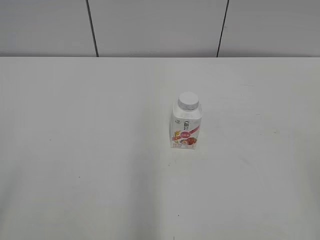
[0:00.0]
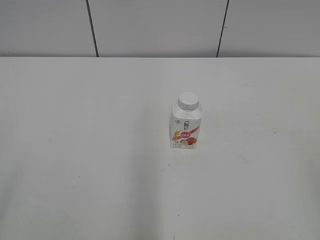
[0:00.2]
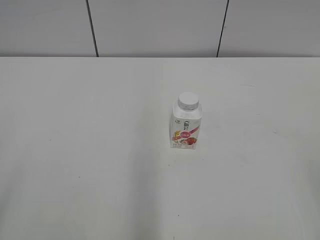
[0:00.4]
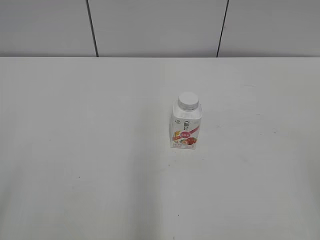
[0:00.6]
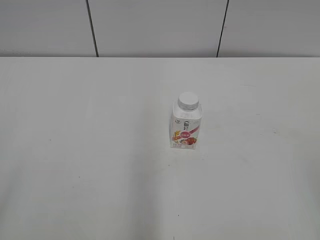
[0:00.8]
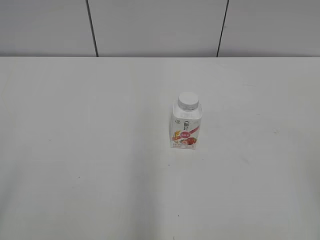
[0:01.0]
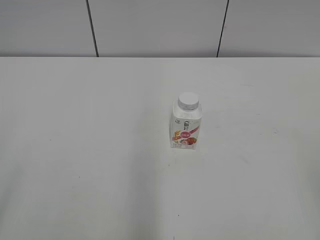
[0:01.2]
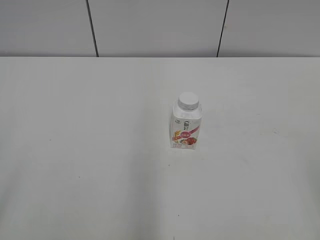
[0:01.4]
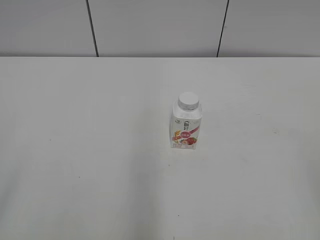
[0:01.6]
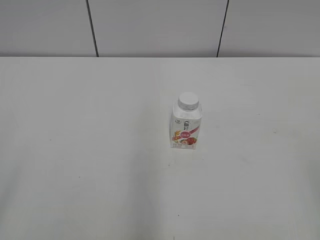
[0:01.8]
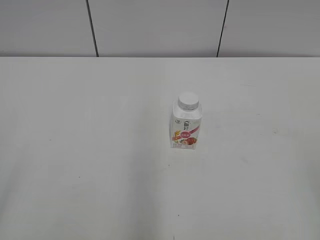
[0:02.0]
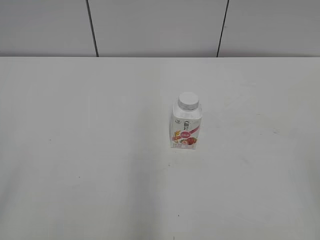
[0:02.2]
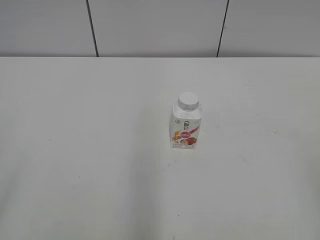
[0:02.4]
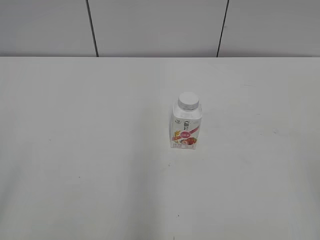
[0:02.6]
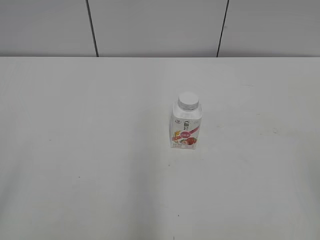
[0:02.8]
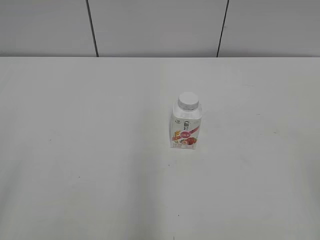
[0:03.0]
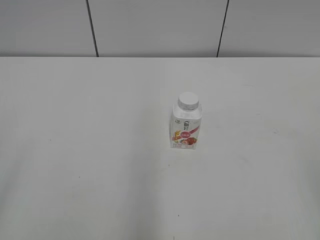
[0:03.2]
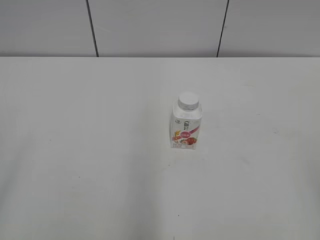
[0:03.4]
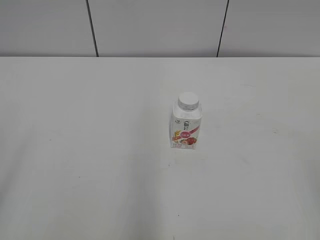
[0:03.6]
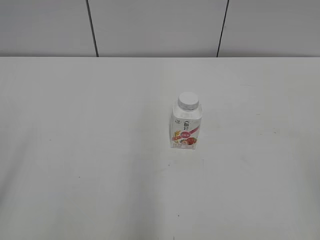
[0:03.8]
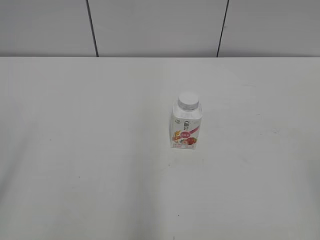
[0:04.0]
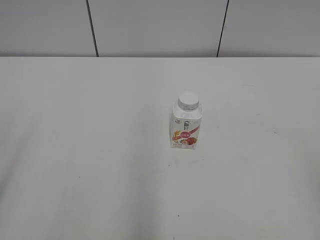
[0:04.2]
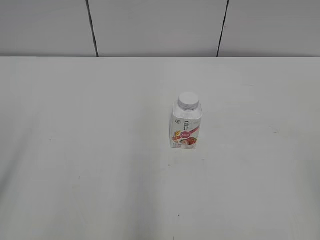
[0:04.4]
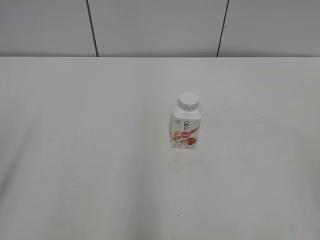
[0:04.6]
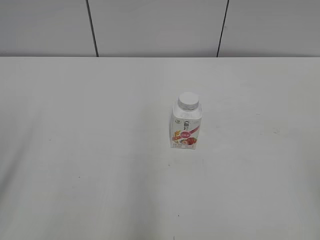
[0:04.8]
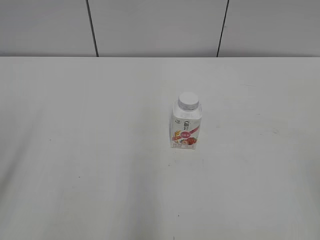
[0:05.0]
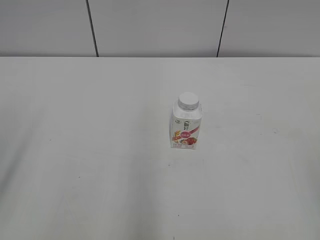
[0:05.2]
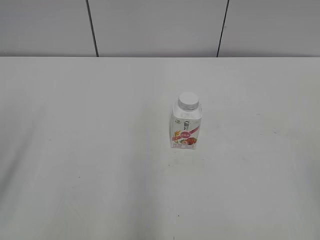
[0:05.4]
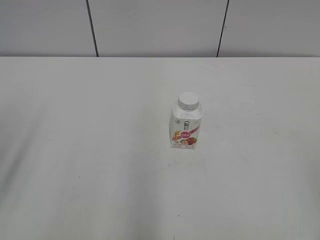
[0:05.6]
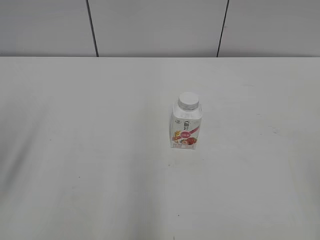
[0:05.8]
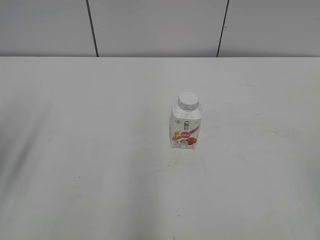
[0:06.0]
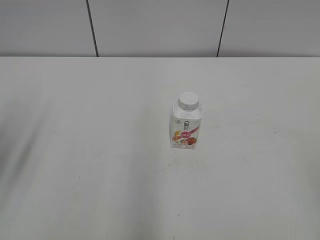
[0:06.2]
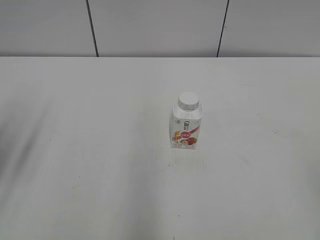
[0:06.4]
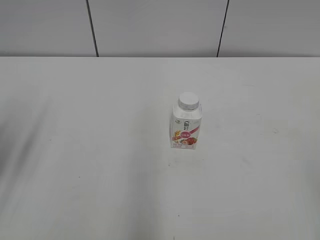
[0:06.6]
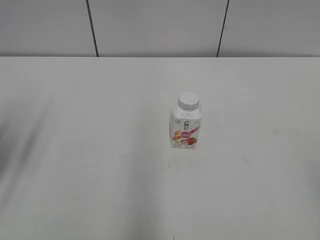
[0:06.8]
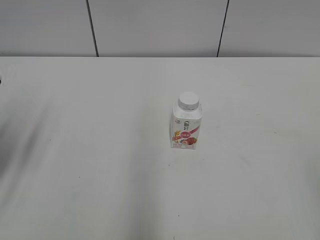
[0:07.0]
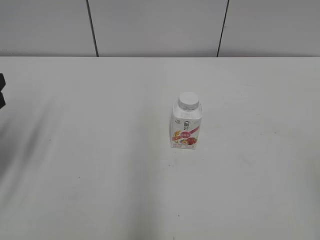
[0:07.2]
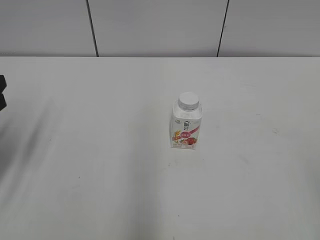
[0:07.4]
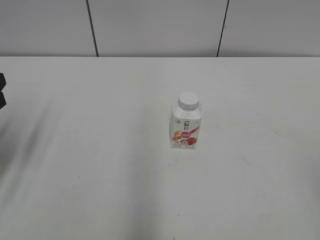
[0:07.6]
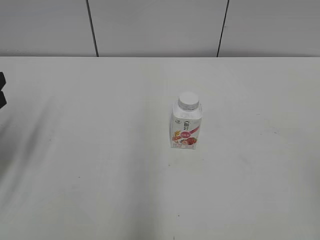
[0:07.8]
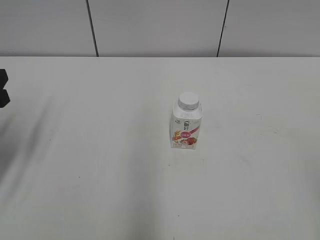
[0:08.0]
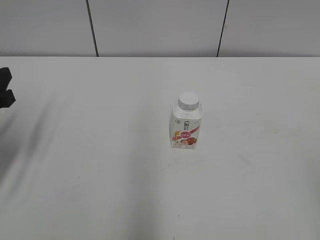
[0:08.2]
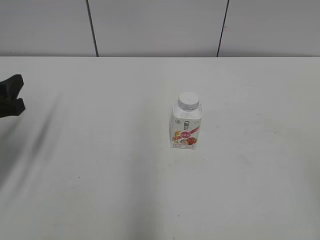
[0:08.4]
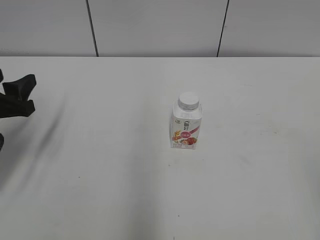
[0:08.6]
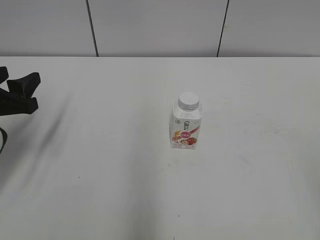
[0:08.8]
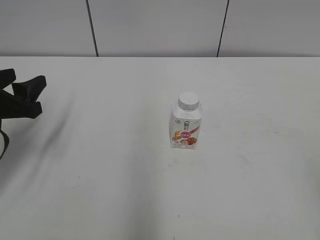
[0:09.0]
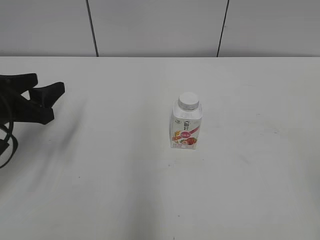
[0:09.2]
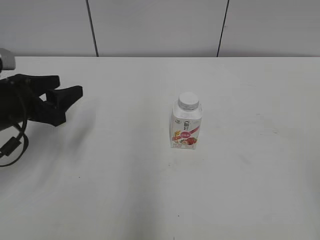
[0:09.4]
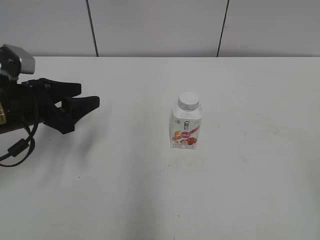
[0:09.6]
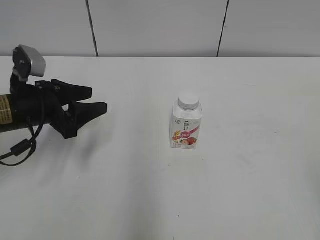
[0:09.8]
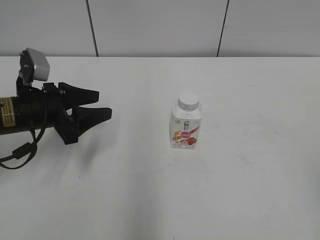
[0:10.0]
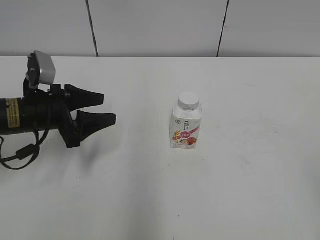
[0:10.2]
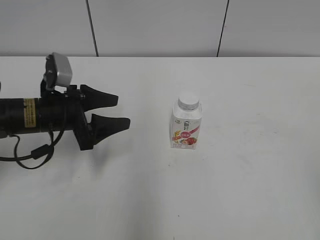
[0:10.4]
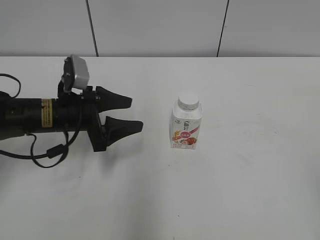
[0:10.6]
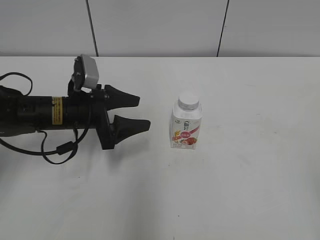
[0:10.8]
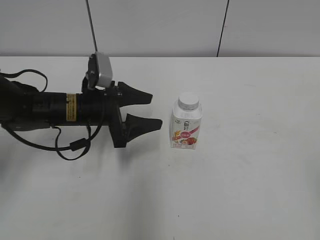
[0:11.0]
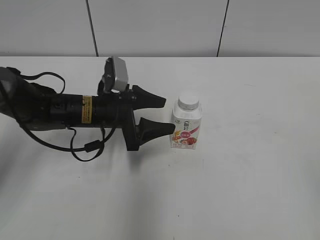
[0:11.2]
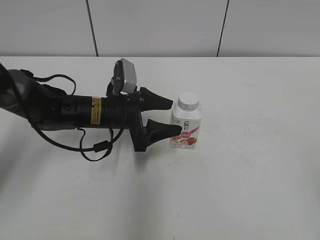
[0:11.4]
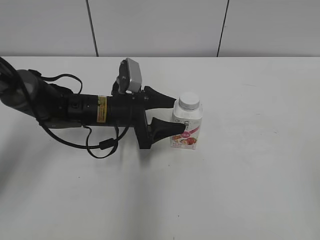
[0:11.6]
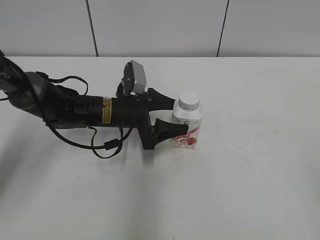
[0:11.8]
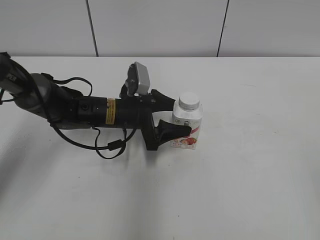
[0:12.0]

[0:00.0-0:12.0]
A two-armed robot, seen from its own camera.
0:01.6 to 0:03.0: The two grippers keep their place.
0:07.6 to 0:09.0: The left gripper ends up some 5 cm from where it was.
0:09.0 to 0:10.4: The left gripper travels to the right and forward by about 10 cm, and opens up.
0:10.4 to 0:12.0: The left gripper travels to the right and forward by roughly 10 cm.

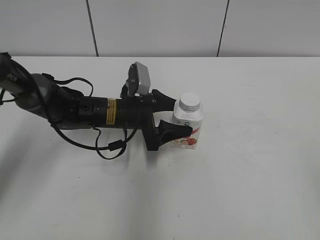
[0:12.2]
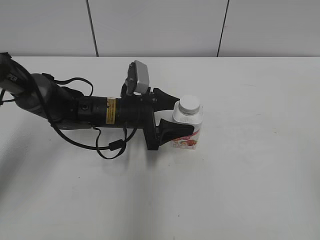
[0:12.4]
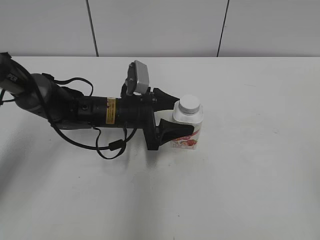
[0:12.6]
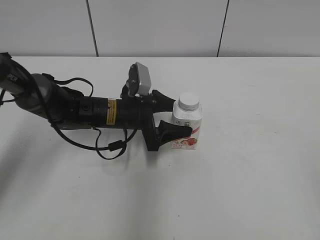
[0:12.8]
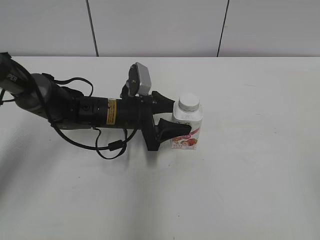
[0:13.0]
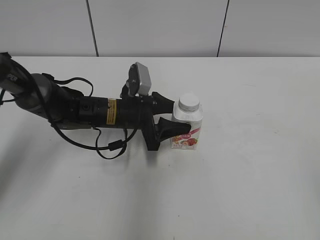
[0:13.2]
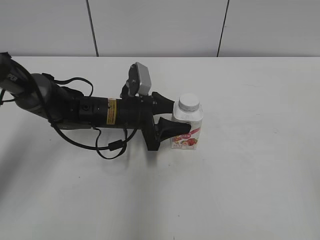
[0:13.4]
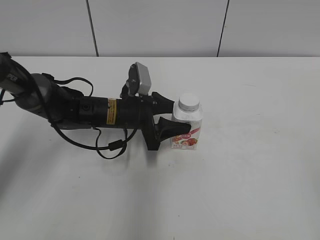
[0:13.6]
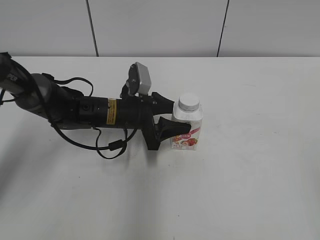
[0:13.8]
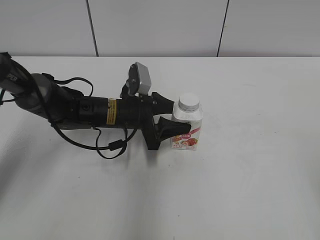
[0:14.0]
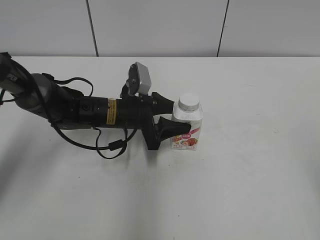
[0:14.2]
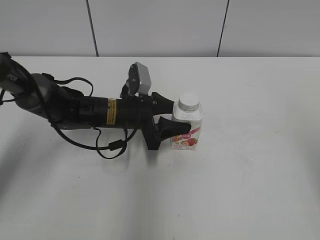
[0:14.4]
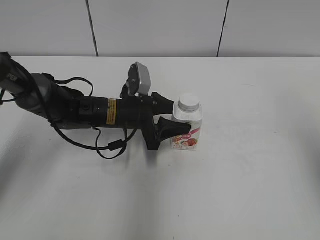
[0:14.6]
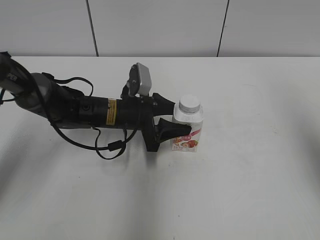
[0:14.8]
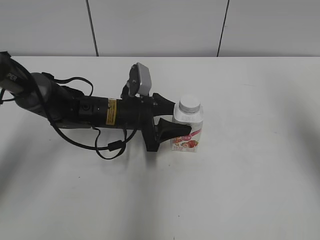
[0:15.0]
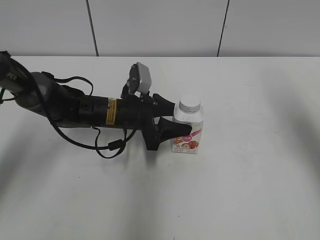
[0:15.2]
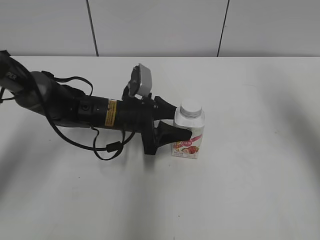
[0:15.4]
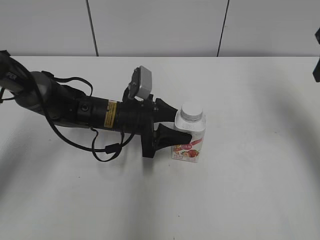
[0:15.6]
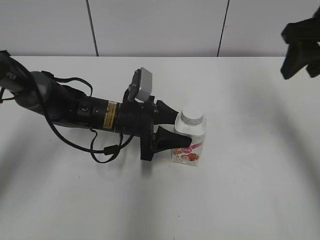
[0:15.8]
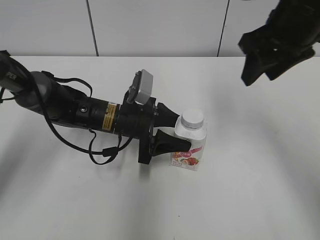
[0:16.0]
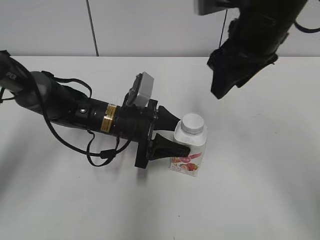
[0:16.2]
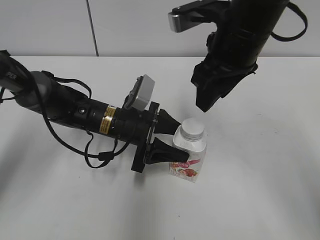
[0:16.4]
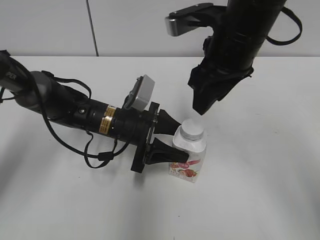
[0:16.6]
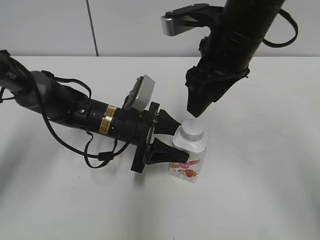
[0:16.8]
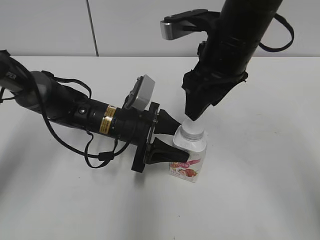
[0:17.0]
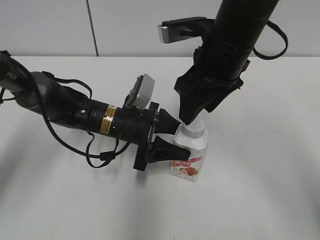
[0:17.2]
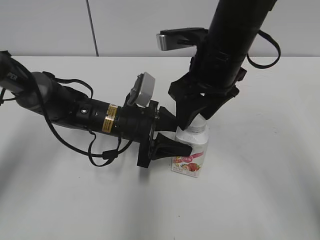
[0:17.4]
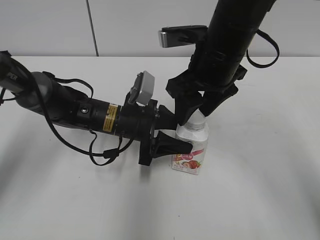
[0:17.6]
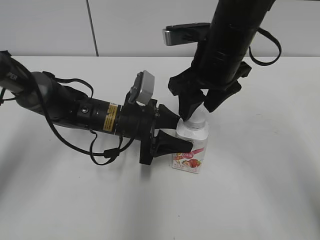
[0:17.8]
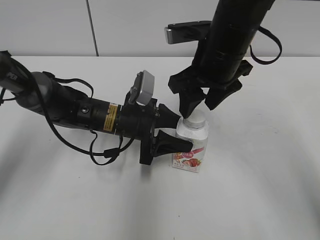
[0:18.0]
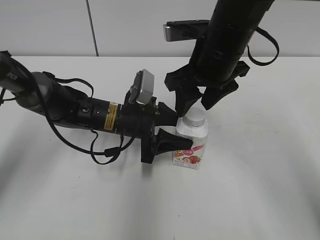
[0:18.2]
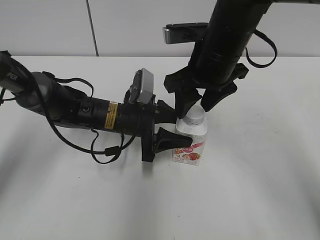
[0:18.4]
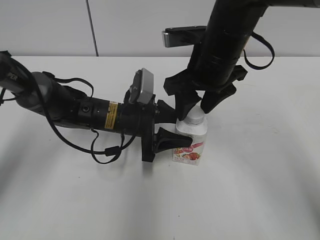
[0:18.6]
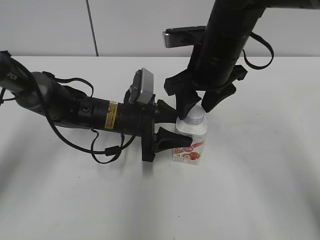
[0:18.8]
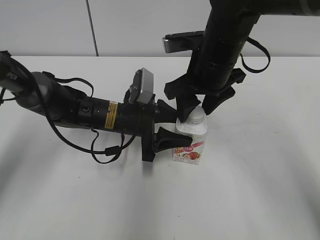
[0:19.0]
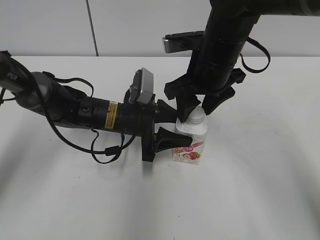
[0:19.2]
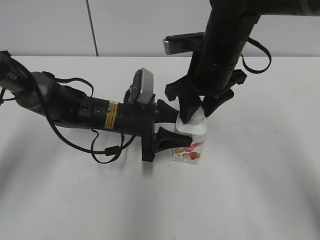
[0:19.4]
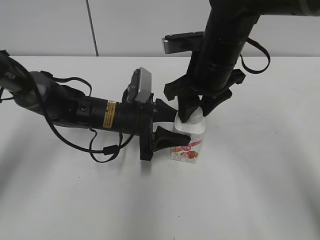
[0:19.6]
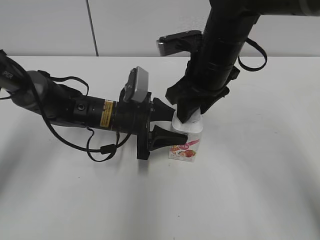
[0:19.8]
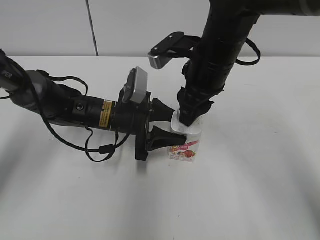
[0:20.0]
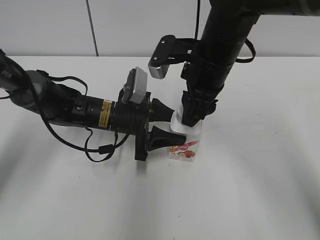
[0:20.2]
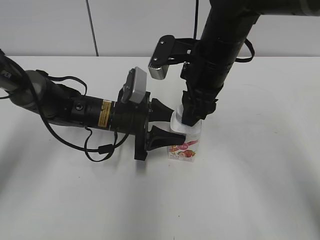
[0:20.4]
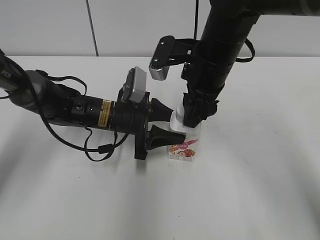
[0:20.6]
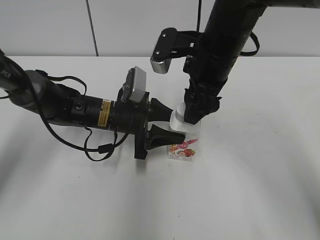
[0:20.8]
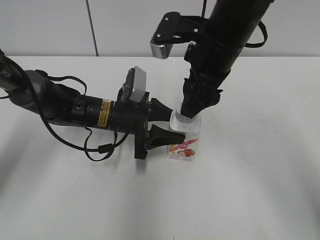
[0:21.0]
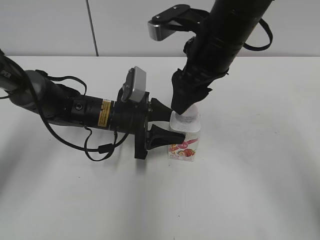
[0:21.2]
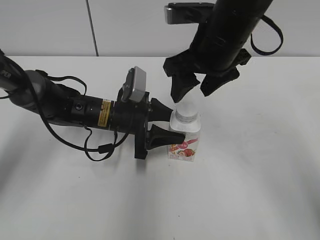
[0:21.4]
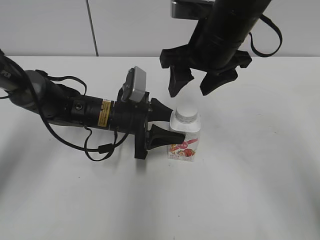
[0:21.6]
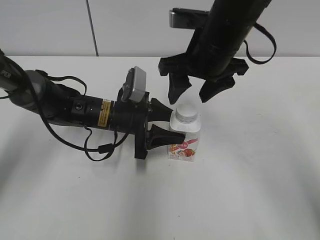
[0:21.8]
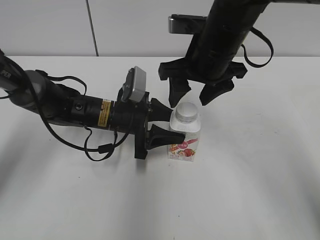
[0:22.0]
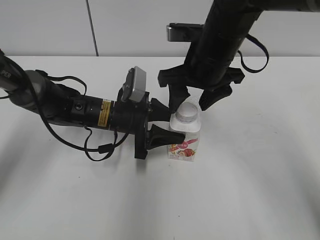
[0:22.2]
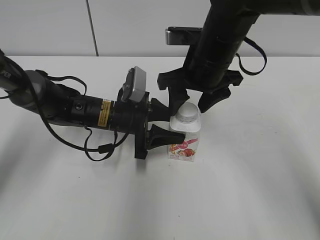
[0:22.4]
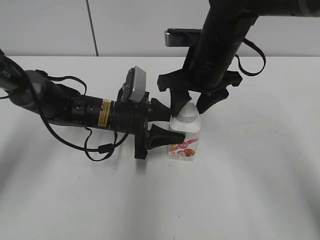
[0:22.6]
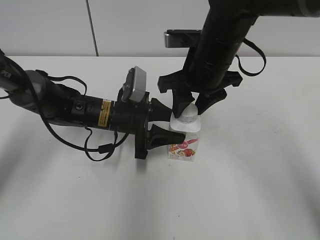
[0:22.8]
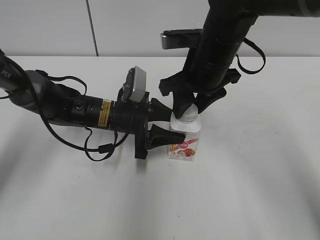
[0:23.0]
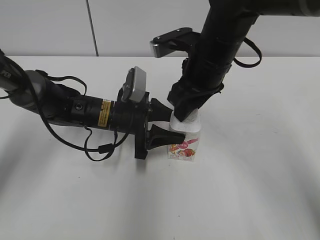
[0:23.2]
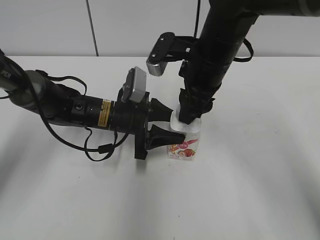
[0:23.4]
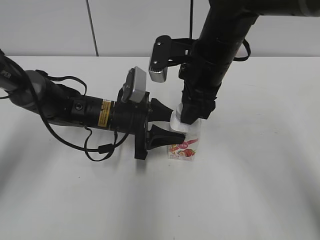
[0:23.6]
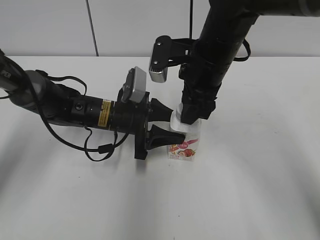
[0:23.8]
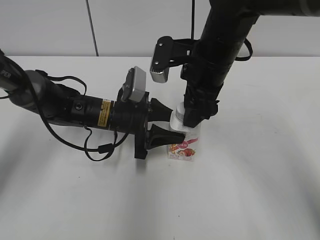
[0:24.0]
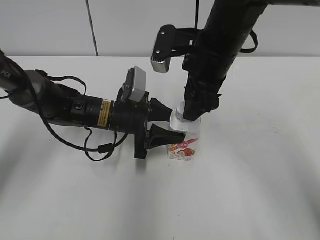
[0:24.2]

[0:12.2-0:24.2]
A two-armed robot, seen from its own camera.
0:12.2 to 0:13.8: The left gripper closes its fingers.
0:13.8 to 0:15.2: The right gripper heads forward, covering some 30 cm.
0:15.2 to 0:16.6: The right gripper shifts roughly 20 cm to the left.
0:16.6 to 0:18.2: There are only small adjustments of the grippers.
0:18.2 to 0:19.8: The right gripper closes its fingers.
0:19.8 to 0:21.2: The right gripper opens.
0:22.6 to 0:24.2: The right gripper opens its fingers.
